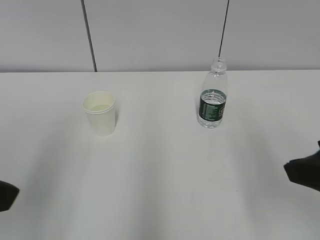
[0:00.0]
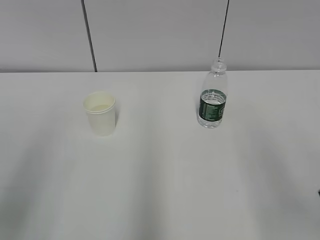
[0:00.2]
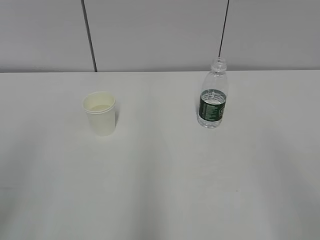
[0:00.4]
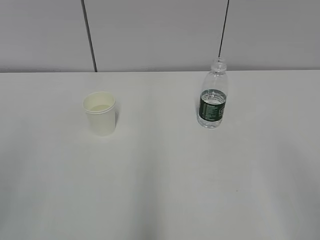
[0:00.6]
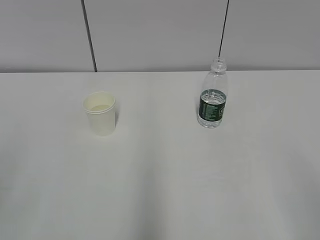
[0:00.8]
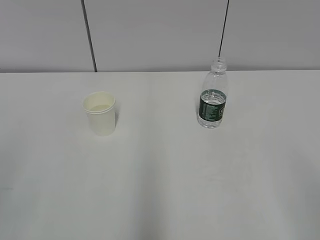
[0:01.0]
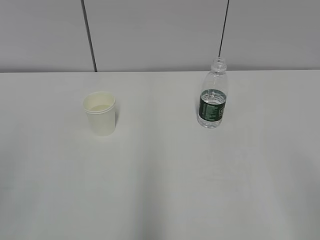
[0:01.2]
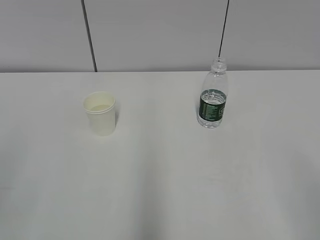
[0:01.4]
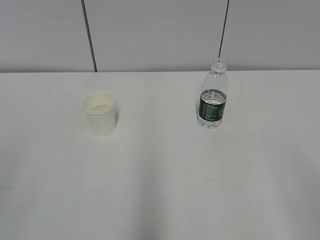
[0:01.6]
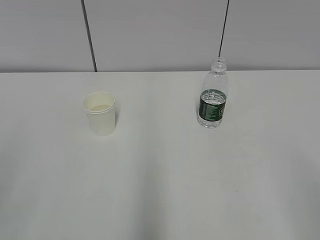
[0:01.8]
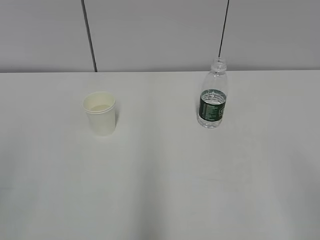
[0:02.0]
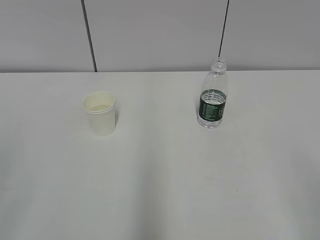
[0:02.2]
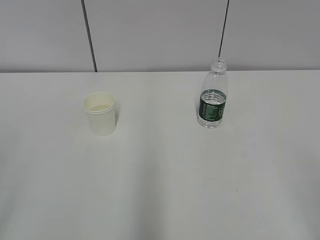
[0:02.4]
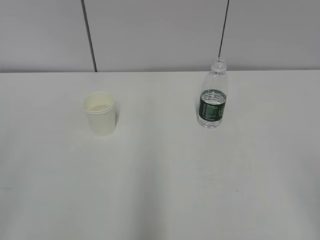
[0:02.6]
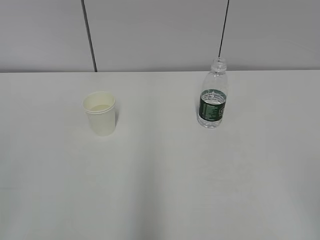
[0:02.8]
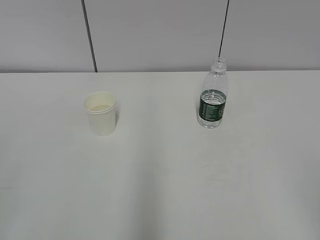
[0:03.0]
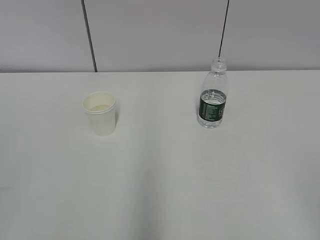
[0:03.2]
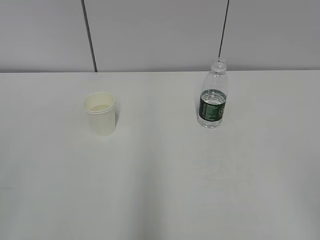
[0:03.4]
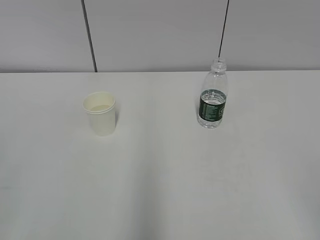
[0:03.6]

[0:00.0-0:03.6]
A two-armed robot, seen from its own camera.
0.0 to 1.8 s: The left gripper shifts about 15 cm backward and to the left. The right gripper moves backward, some 15 cm.

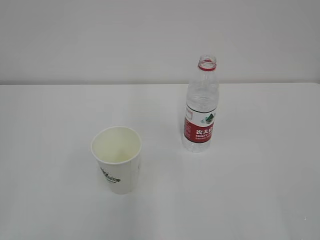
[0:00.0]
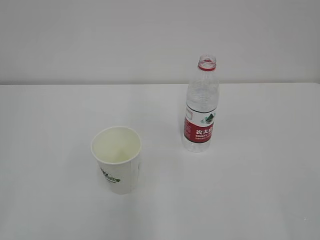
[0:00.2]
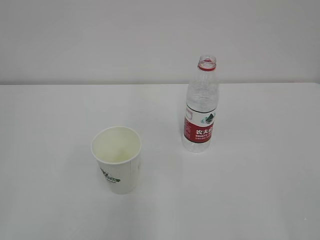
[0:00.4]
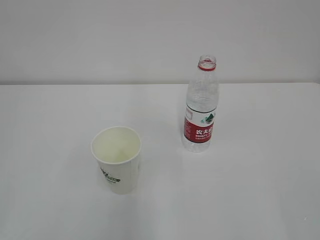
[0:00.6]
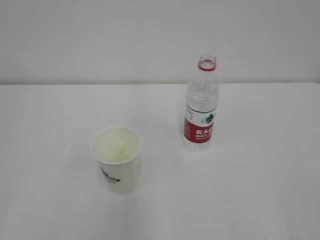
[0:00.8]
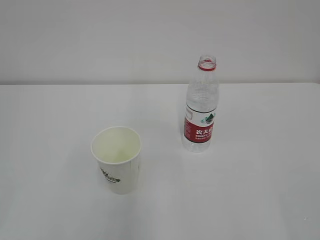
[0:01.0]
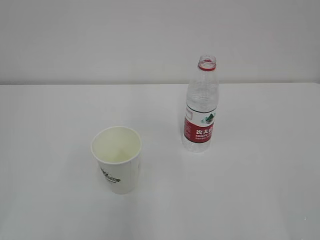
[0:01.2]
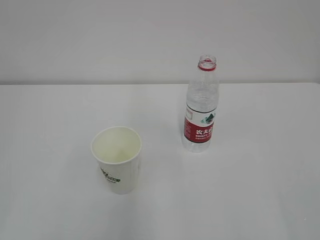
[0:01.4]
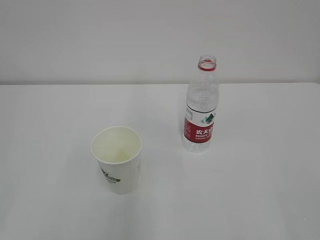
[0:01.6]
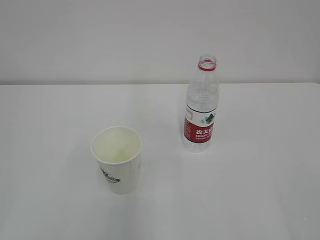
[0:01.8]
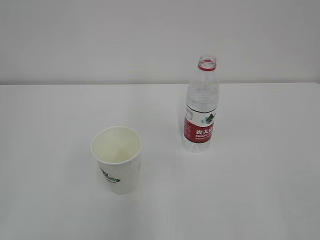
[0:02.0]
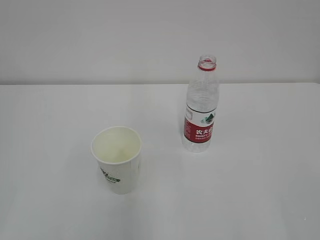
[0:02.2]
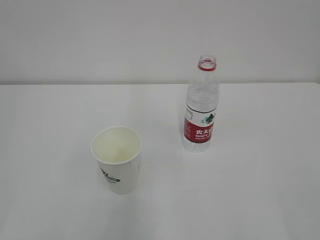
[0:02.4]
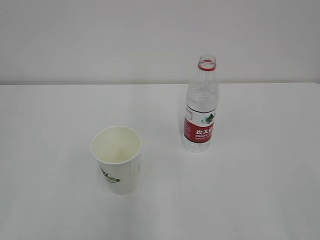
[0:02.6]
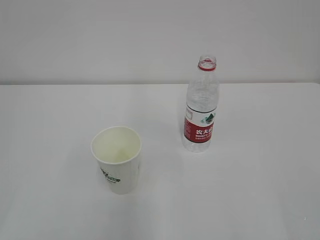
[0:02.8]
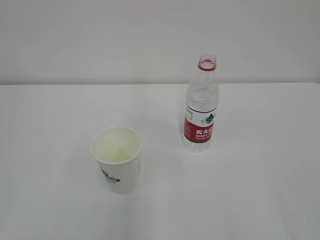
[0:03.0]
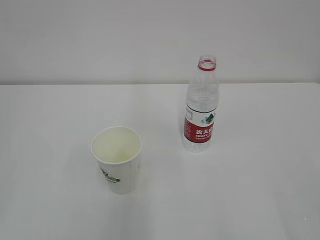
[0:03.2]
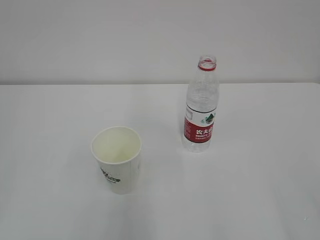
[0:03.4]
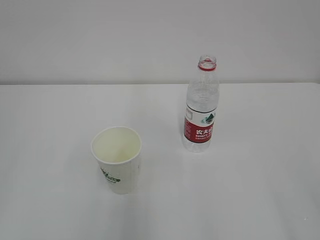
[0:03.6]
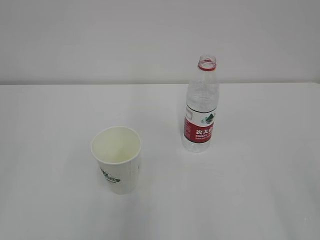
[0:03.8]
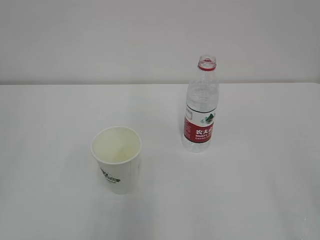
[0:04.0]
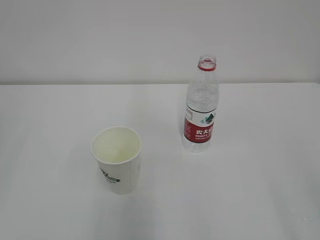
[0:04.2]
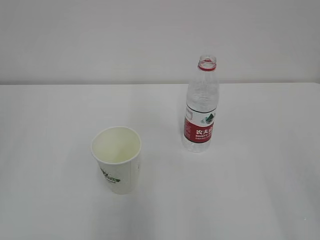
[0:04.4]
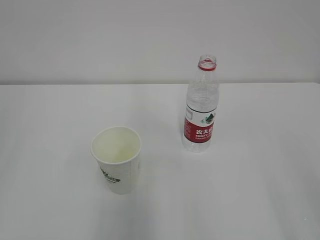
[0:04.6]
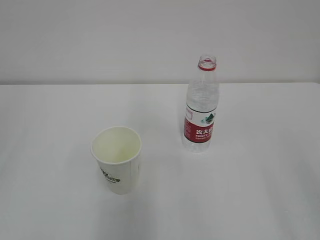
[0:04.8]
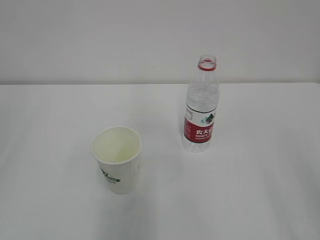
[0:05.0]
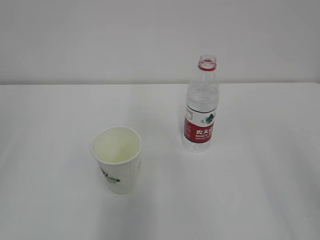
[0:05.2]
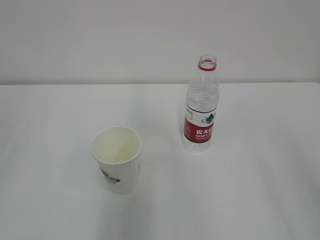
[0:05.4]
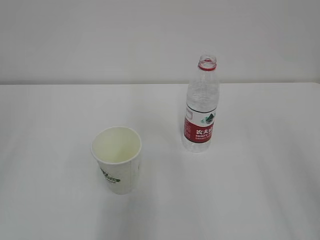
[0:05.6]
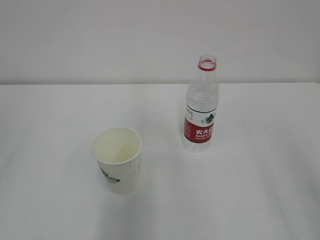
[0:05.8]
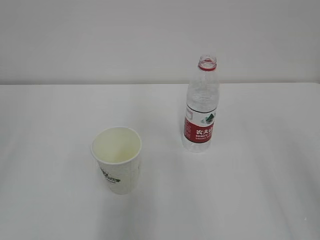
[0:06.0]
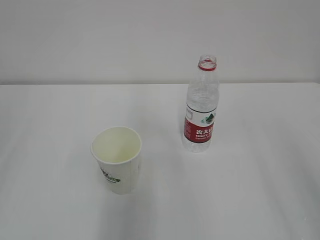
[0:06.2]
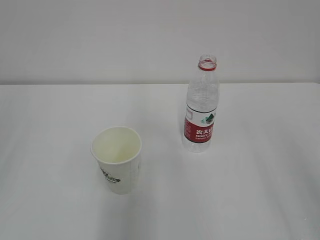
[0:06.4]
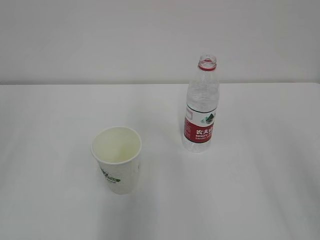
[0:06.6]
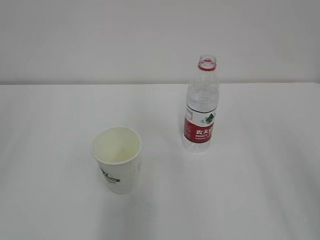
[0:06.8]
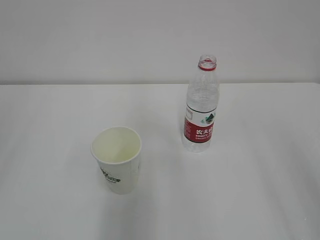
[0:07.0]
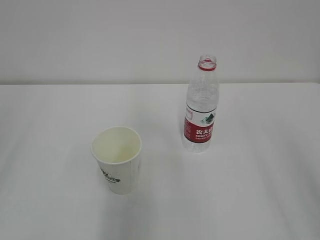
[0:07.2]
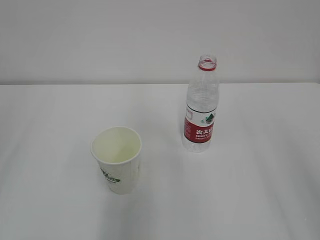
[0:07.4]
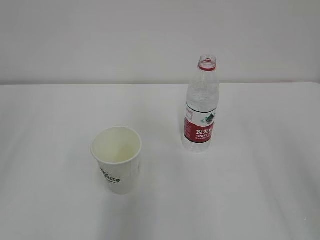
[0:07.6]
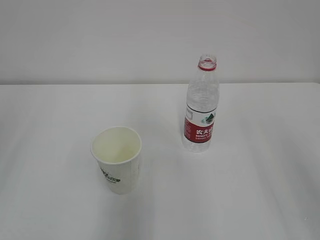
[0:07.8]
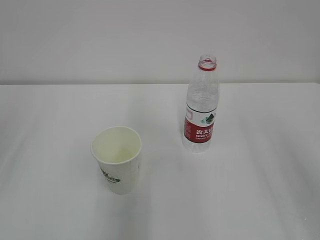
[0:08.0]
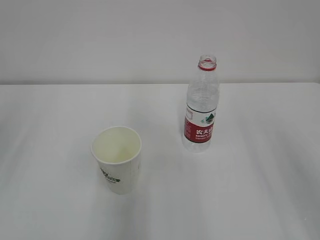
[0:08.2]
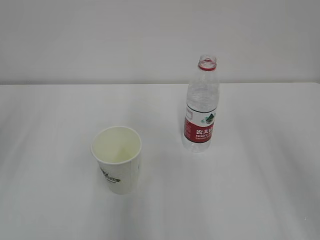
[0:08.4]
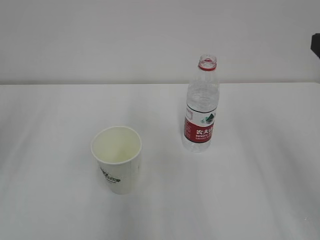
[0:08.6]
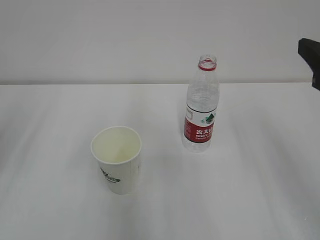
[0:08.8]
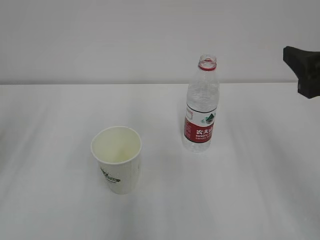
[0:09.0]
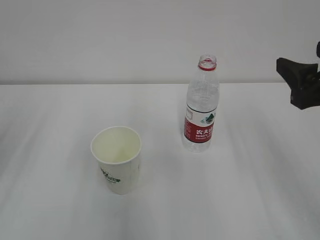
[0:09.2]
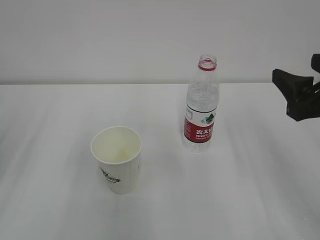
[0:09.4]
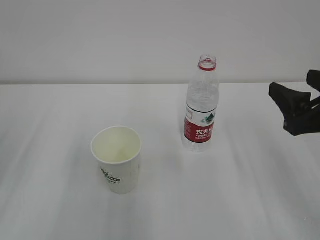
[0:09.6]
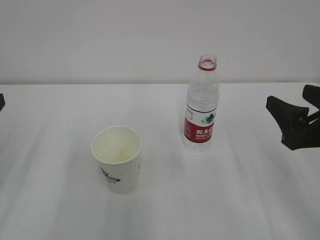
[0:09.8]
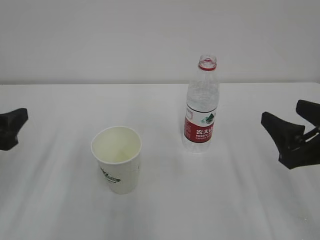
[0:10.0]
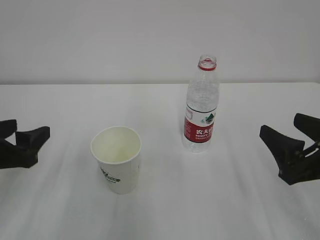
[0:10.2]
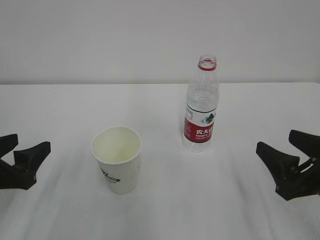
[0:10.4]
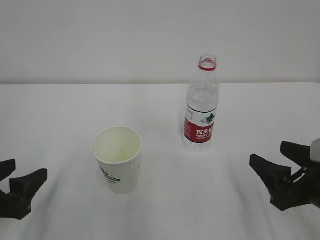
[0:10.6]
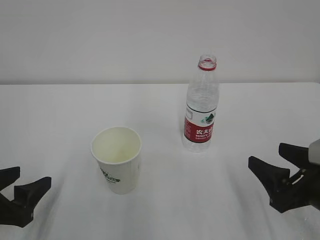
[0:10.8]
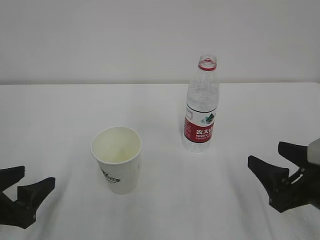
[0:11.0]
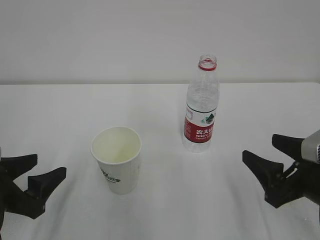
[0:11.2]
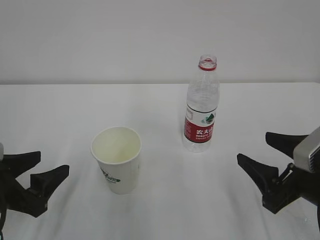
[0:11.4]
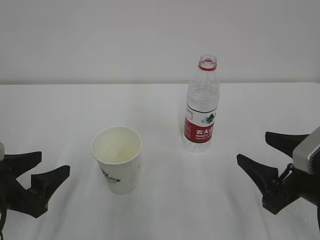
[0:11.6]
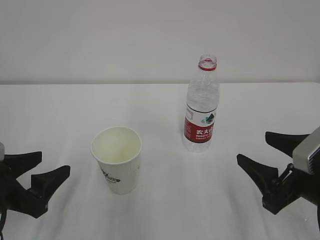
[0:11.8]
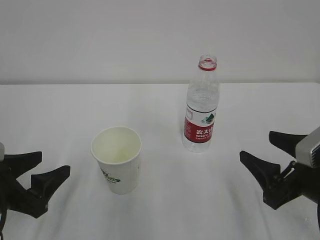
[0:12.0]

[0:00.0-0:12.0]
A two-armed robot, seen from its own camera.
1.6 to 3.0 s: Neither gripper changes place.
7.6 to 9.0 s: The right gripper travels forward and downward by roughly 15 cm.
9.0 to 10.4 s: The right gripper is displaced downward by some 15 cm; the left gripper shifts roughly 15 cm downward and backward.
10.4 to 12.0 s: The grippers stay close to where they were, moving slightly.

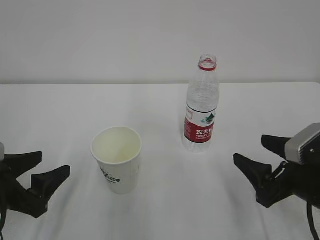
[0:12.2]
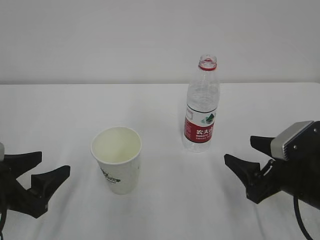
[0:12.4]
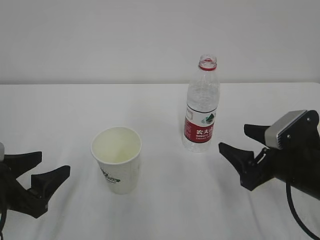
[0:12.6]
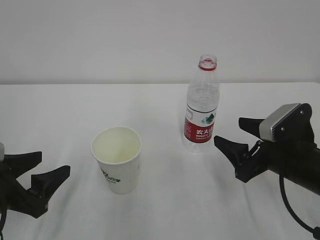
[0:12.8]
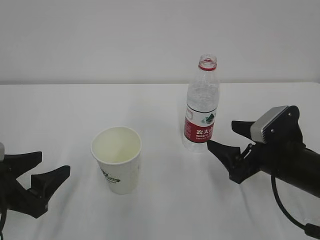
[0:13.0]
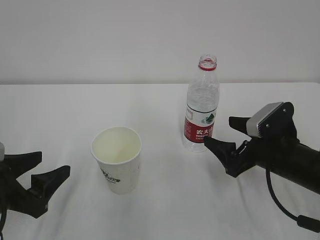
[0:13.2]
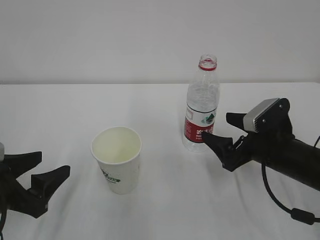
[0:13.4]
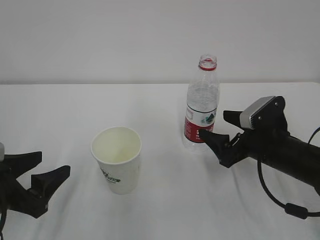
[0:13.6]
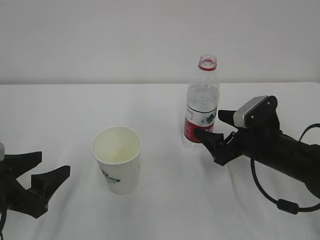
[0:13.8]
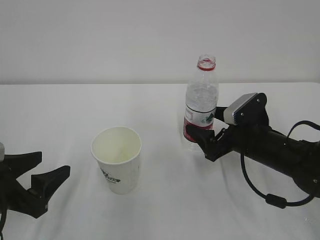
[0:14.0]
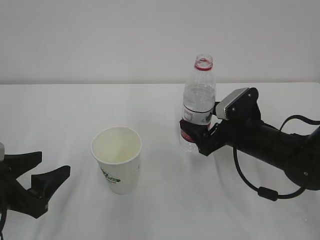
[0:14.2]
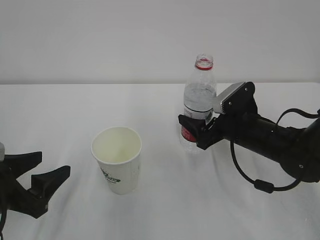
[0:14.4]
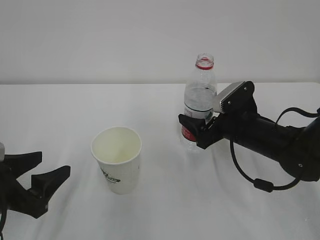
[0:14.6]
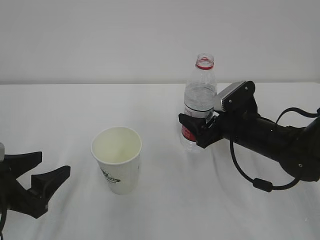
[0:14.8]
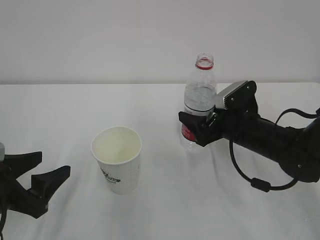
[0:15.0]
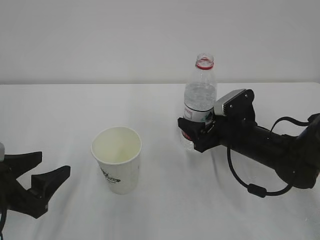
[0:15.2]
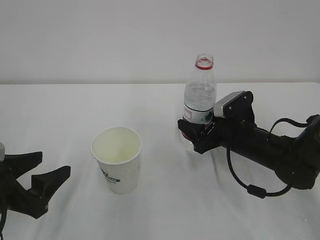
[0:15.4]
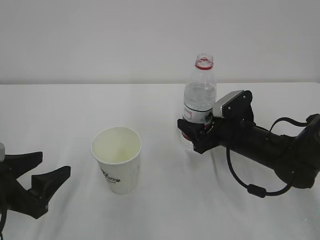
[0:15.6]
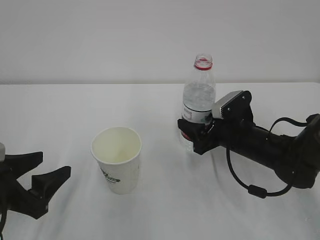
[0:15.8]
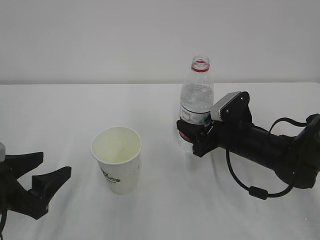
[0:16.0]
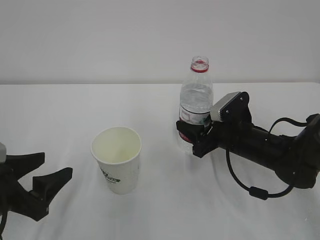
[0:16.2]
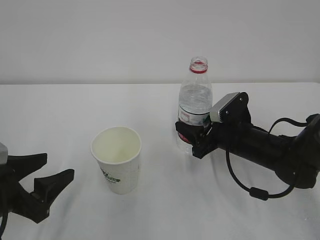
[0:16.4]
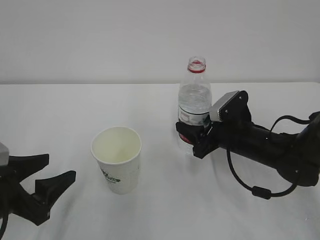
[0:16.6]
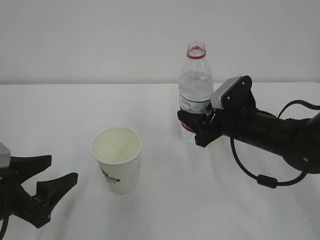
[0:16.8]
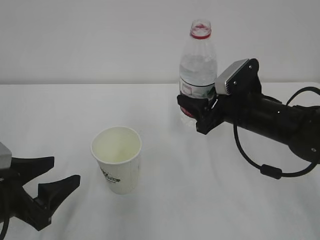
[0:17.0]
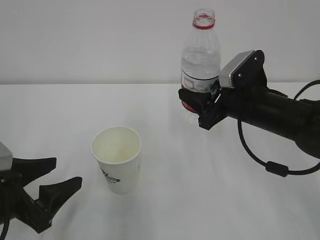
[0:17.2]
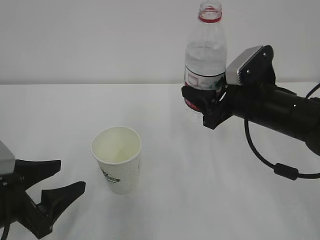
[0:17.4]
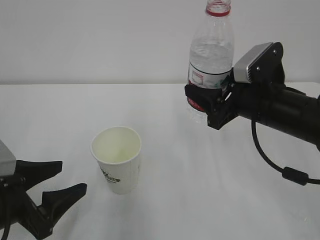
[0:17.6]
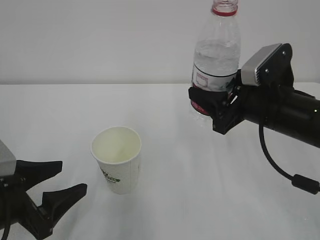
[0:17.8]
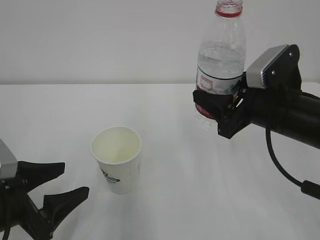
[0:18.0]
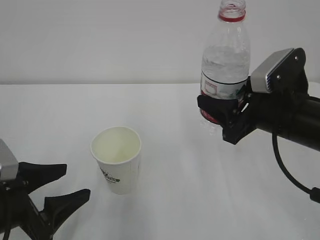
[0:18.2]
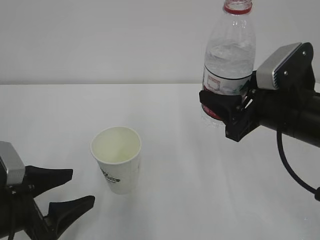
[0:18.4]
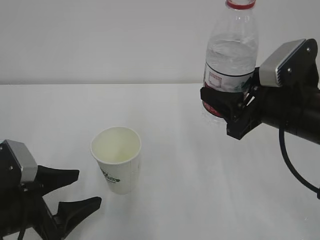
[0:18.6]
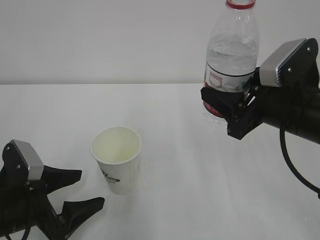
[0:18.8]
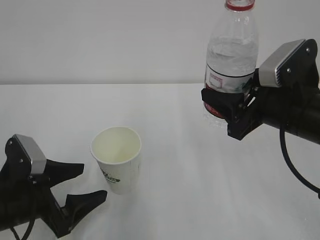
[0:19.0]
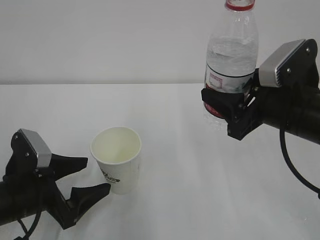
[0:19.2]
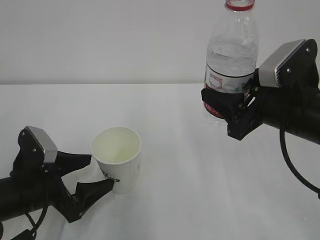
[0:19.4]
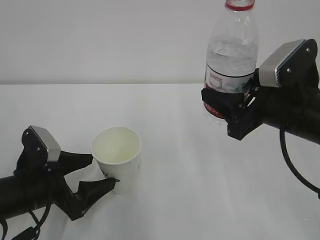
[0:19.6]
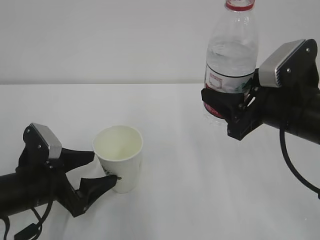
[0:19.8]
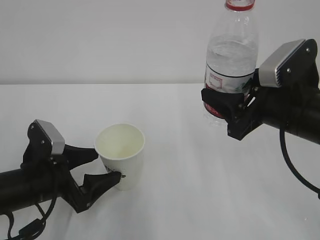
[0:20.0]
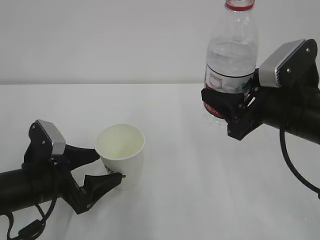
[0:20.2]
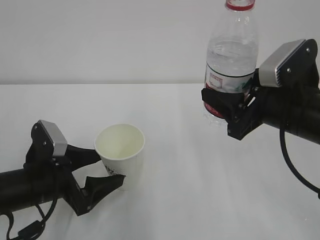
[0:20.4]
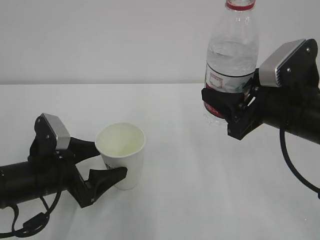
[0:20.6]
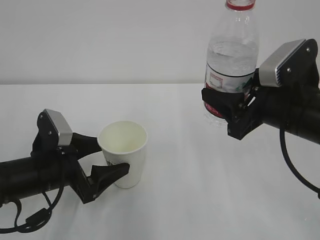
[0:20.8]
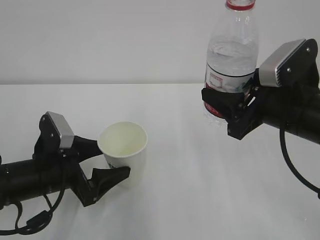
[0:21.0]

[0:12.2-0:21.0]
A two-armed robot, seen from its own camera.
12.2 to 13.6 s: The right gripper travels forward by about 10 cm.
13.6 to 15.2 s: The right gripper shifts by approximately 5 cm.
15.2 to 16.6 s: The right gripper closes its fingers.
16.6 to 18.0 s: The right gripper heads upward and backward, covering approximately 15 cm.
18.0 to 19.6 s: The left gripper moves forward, roughly 5 cm, and opens up.
19.6 to 21.0 s: There are only small adjustments of the grippers.
